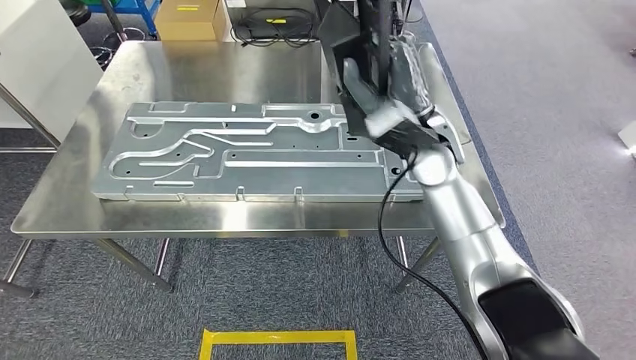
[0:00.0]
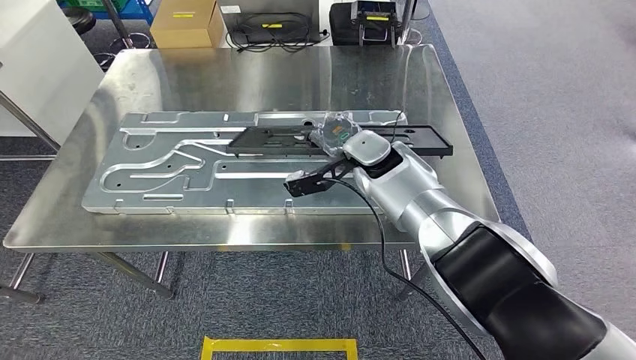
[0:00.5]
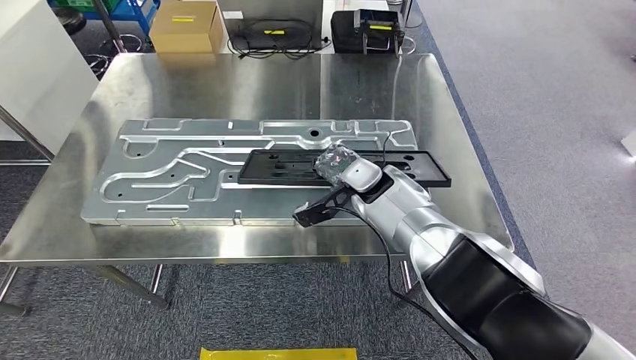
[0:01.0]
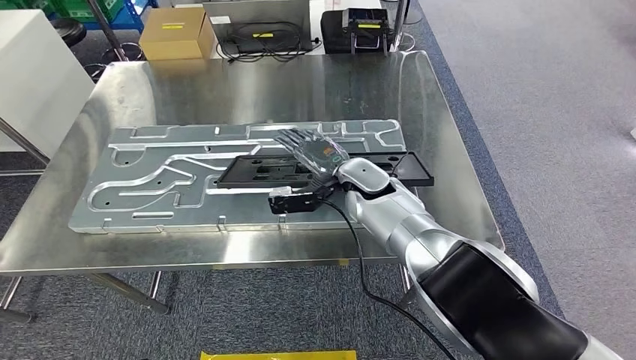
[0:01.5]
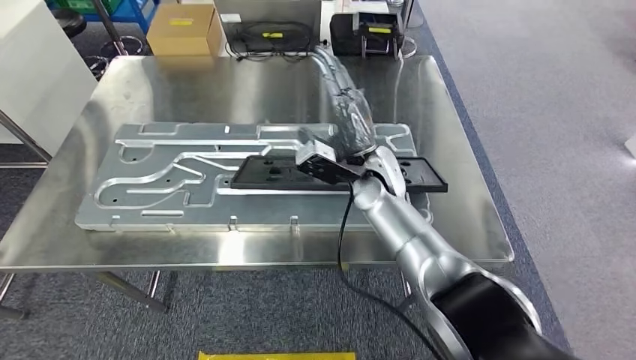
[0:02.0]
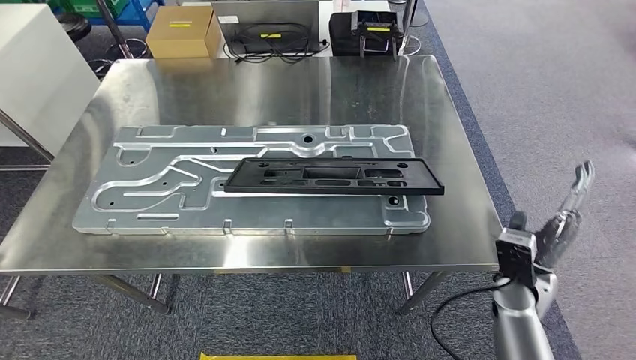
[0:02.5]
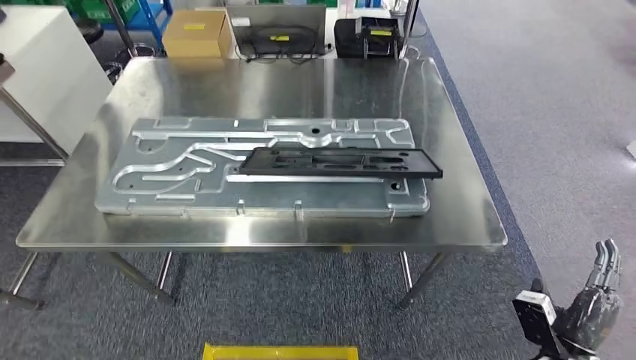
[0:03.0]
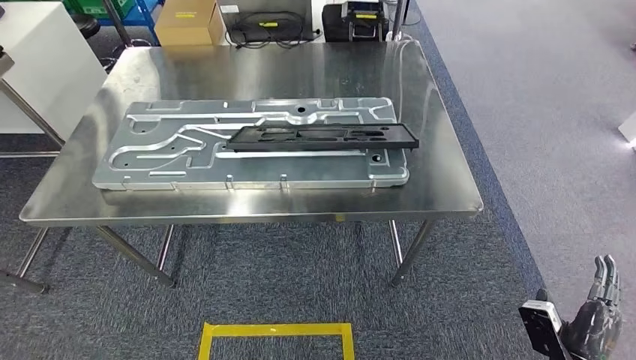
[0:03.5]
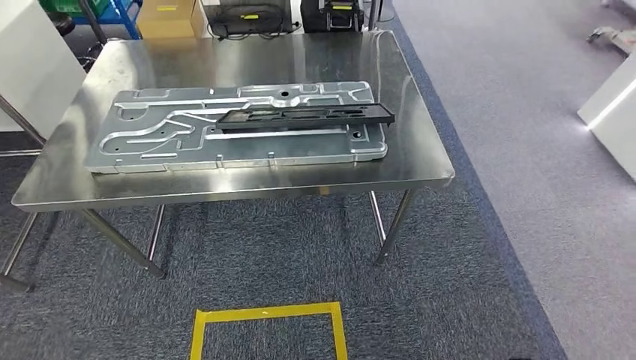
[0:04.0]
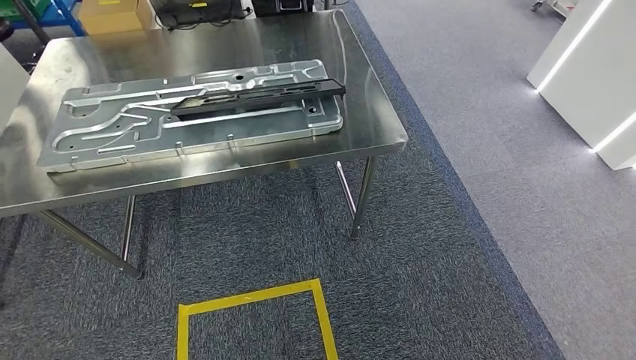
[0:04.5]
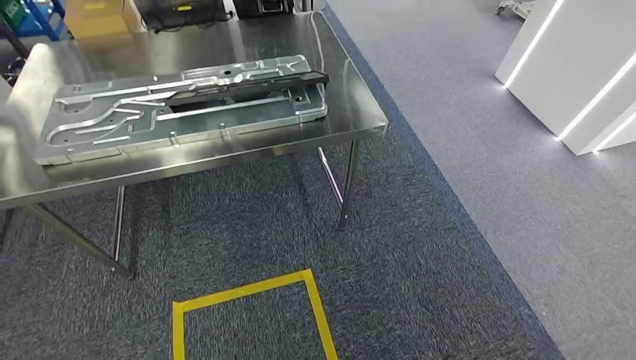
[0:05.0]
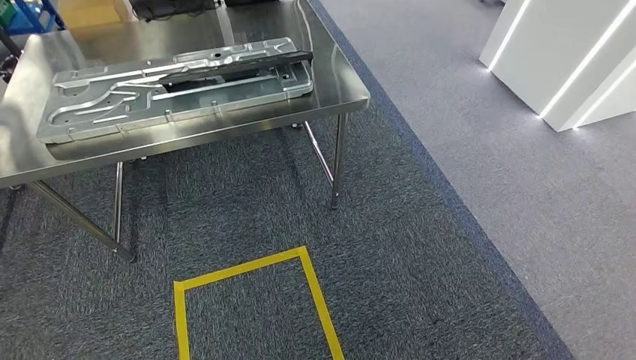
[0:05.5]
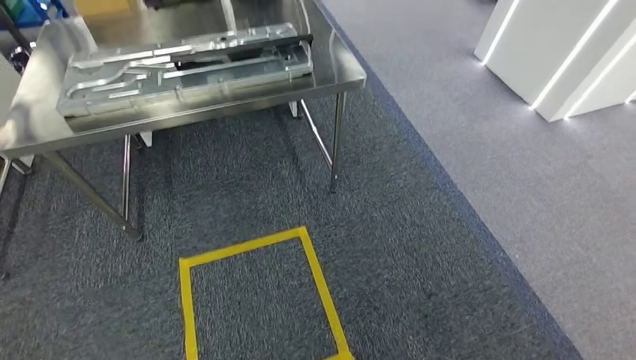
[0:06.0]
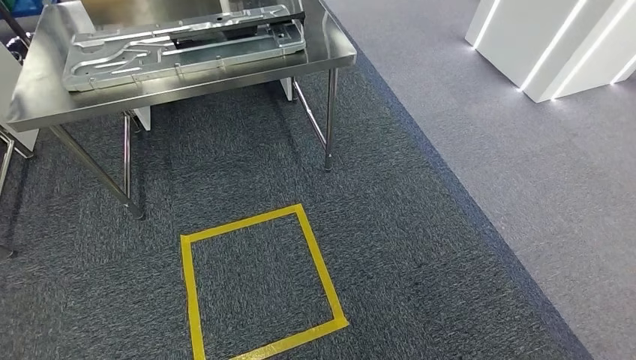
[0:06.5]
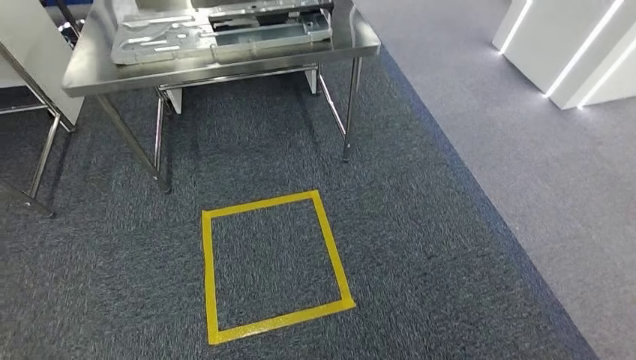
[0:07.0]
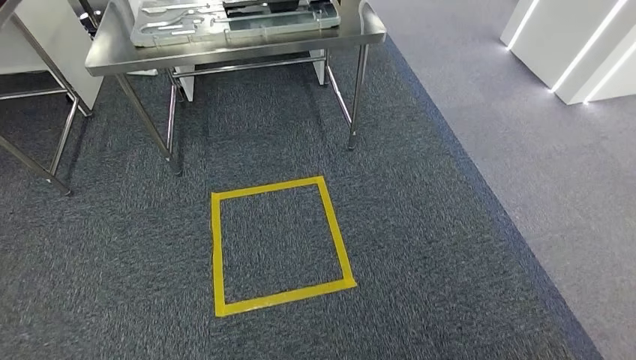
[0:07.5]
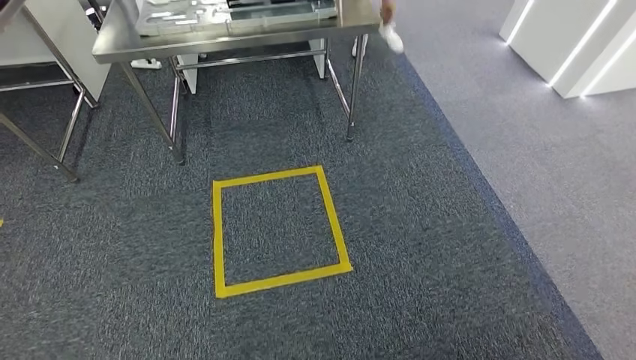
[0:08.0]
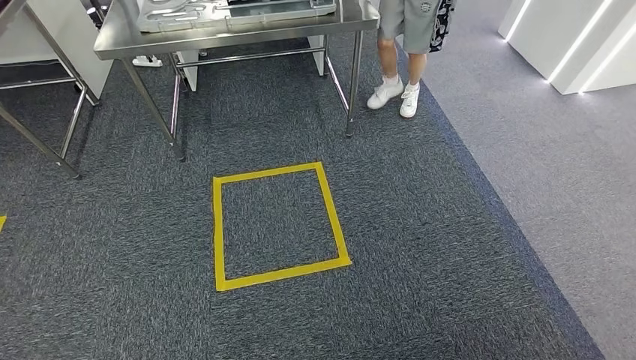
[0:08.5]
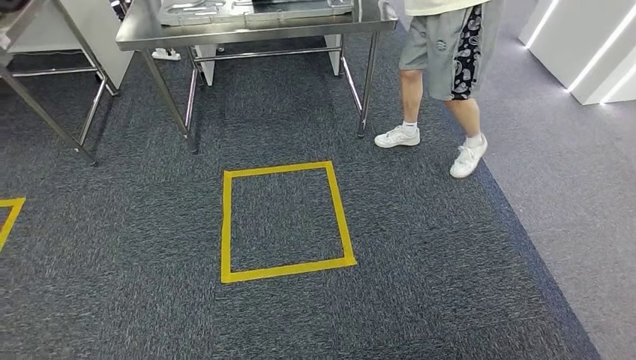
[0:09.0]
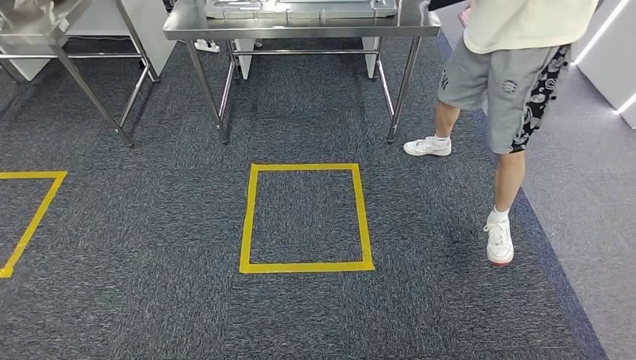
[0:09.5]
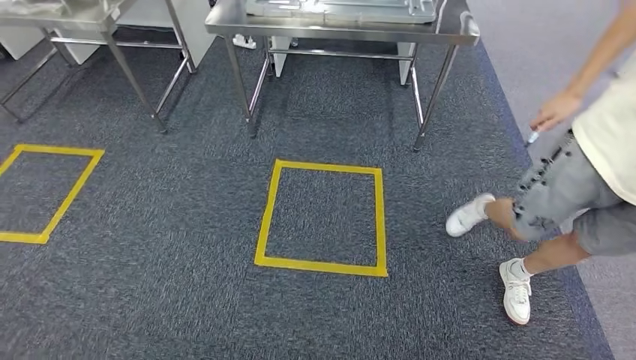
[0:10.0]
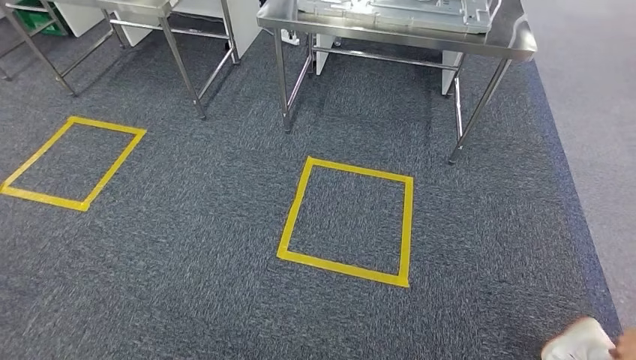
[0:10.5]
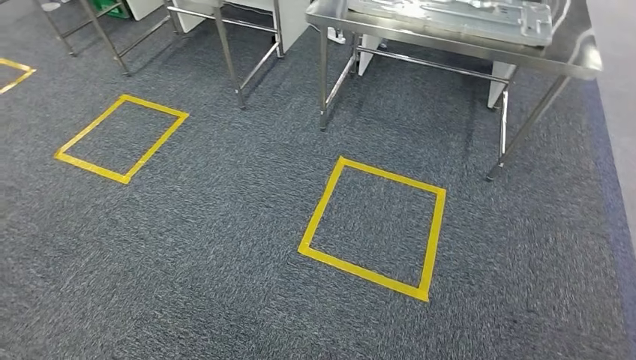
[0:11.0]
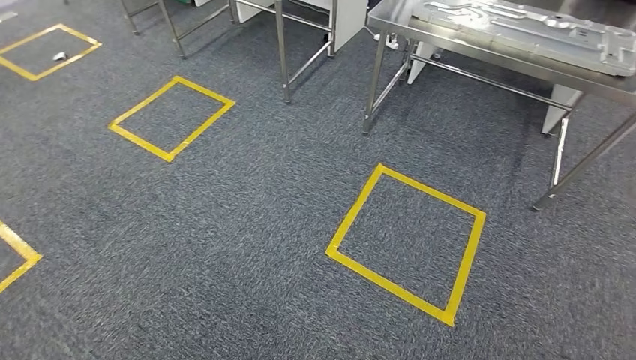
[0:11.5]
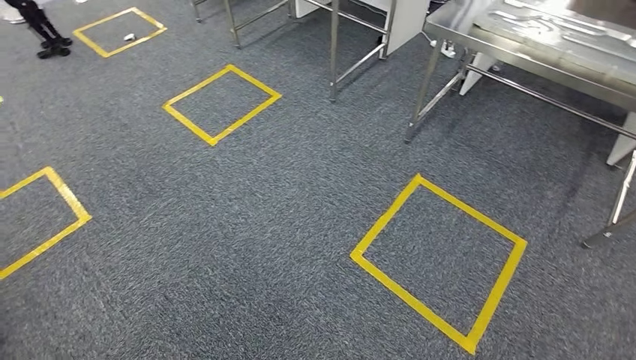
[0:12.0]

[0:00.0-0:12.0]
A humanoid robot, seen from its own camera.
Step, 0:01.0 to 0:03.5: Insert the large material into the corresponding slot on the workbench.

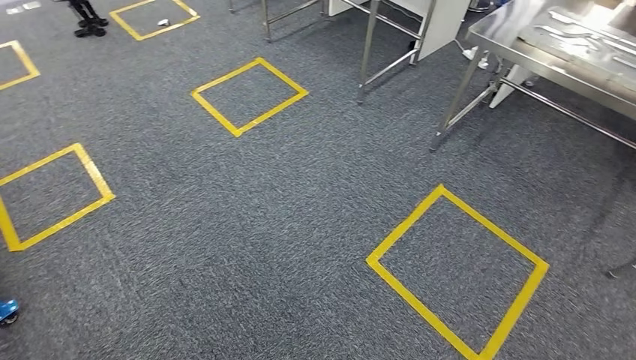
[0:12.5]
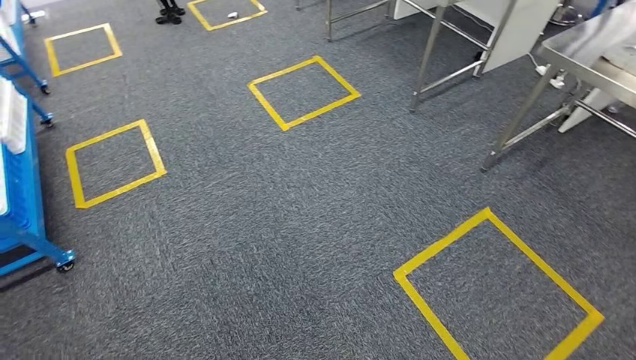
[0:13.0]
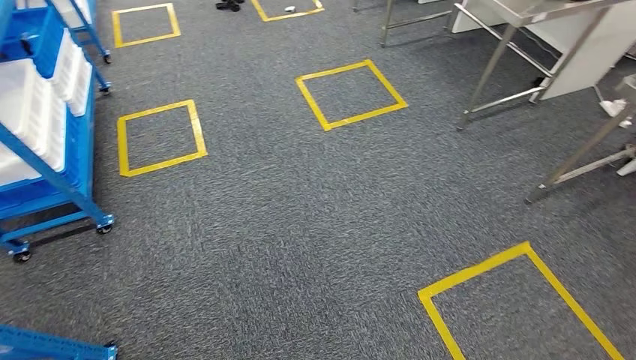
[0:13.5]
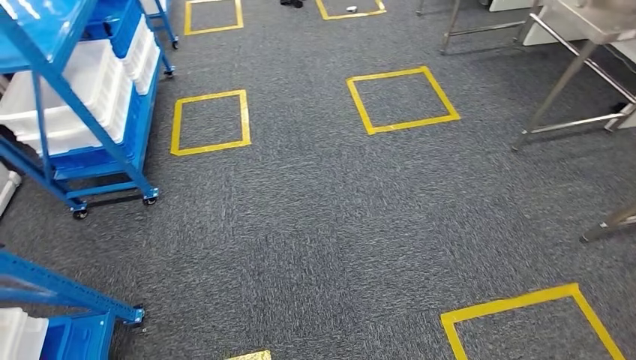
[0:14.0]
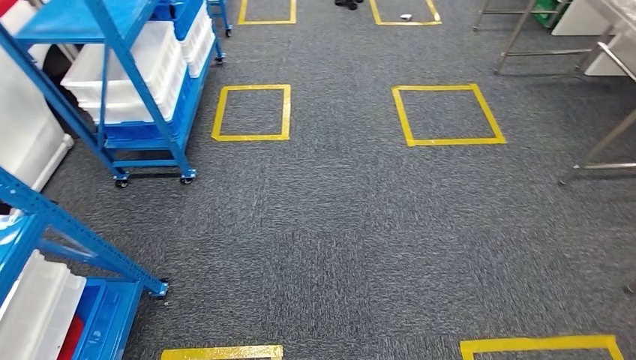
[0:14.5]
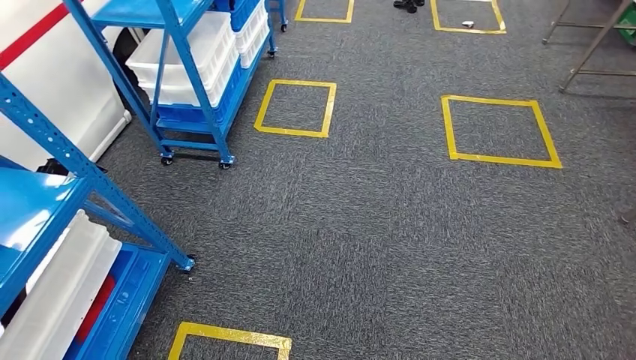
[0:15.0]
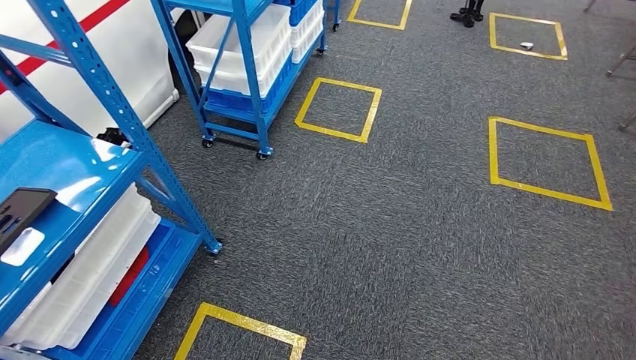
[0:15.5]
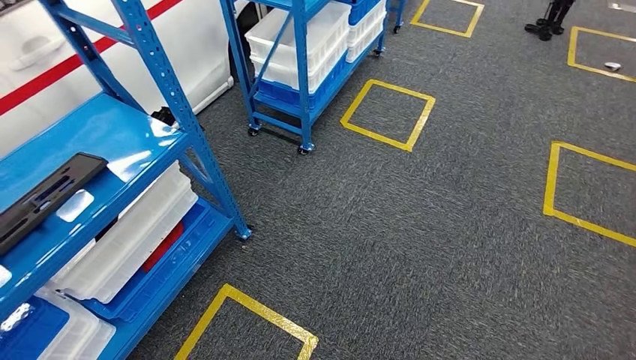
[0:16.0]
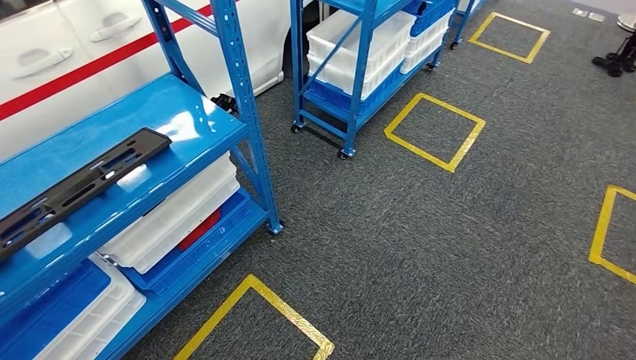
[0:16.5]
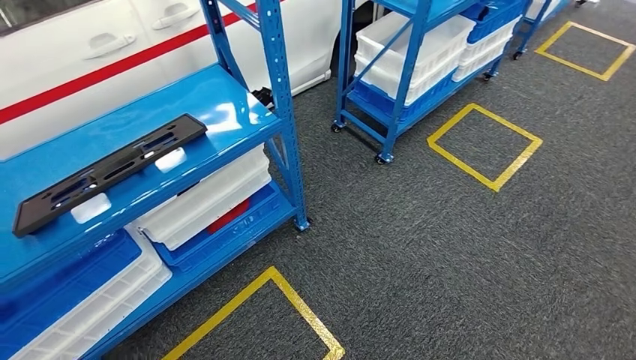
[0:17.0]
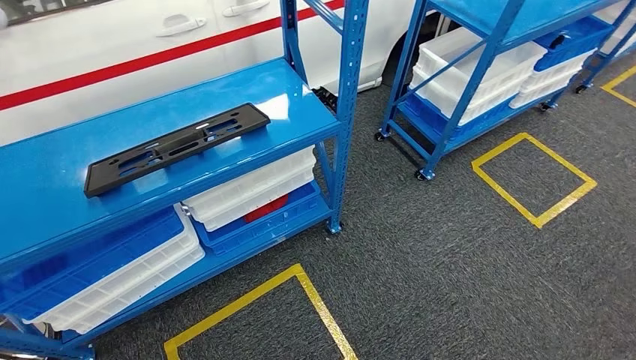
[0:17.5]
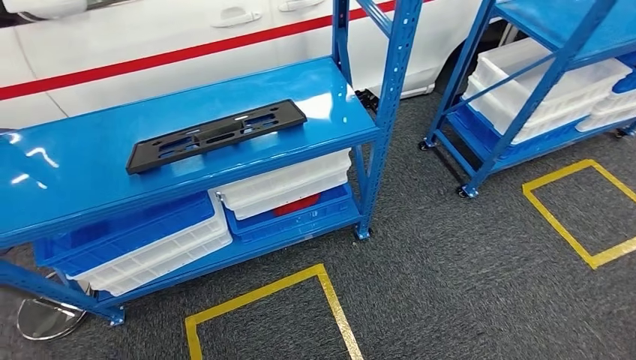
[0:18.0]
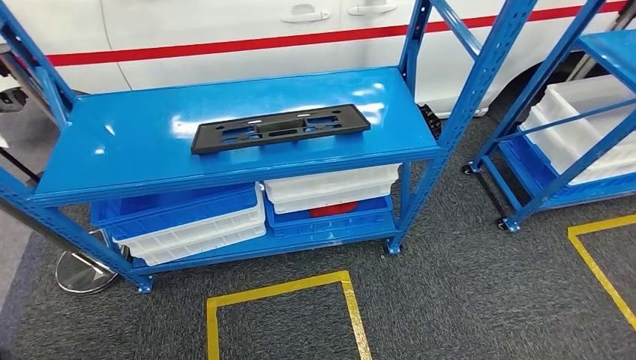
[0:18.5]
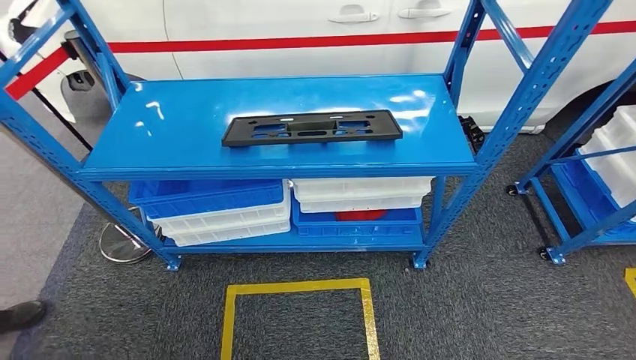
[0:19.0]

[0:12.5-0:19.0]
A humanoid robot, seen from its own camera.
Step, 0:12.5 to 0:15.5: Return to the initial position at the shelf.

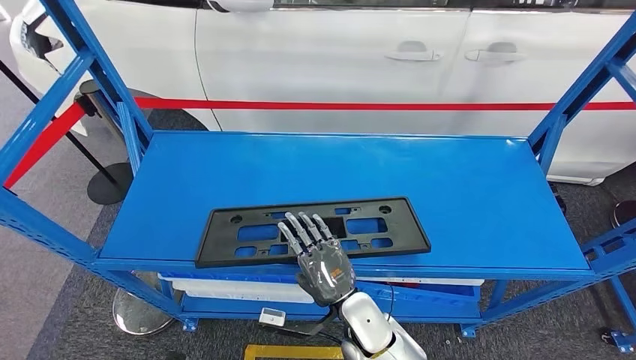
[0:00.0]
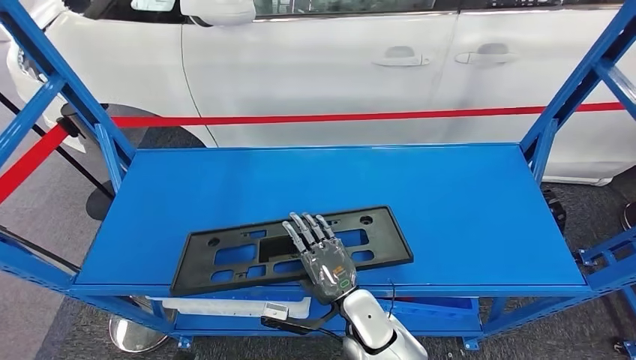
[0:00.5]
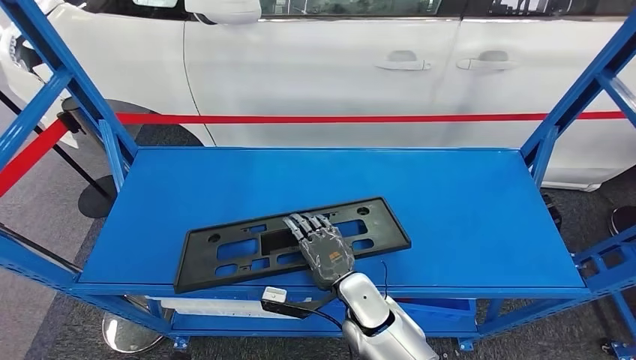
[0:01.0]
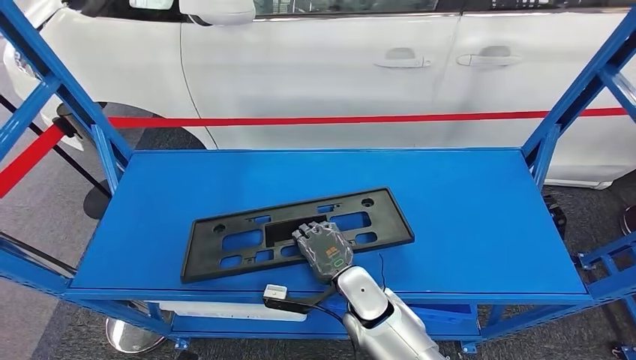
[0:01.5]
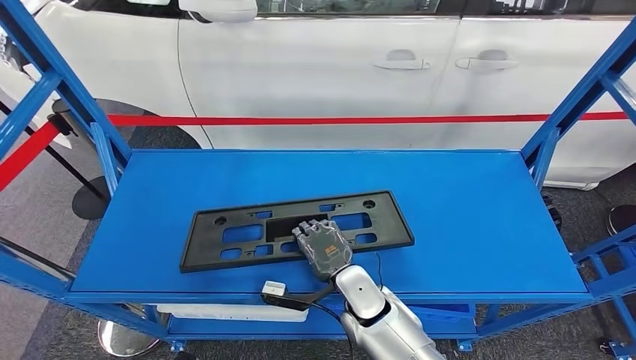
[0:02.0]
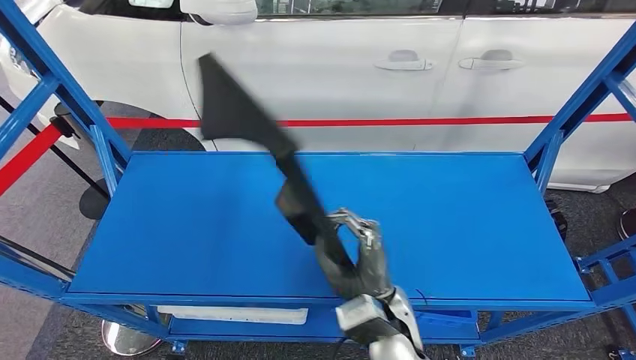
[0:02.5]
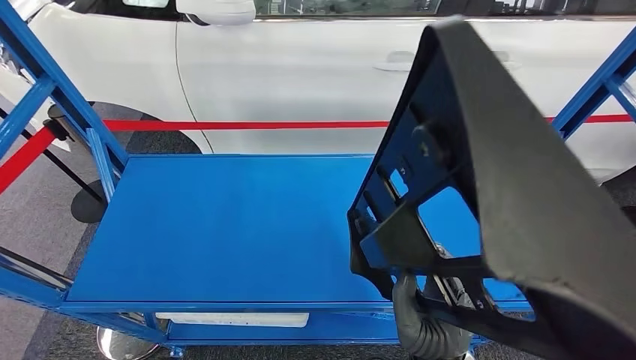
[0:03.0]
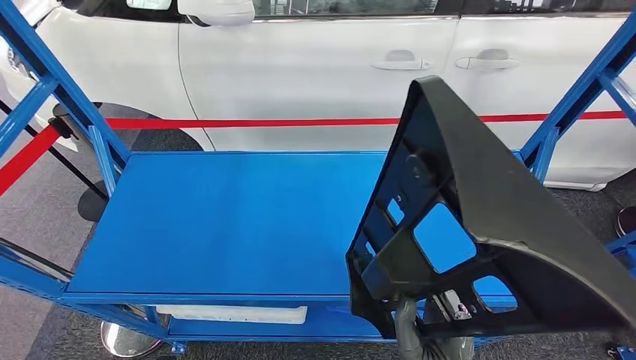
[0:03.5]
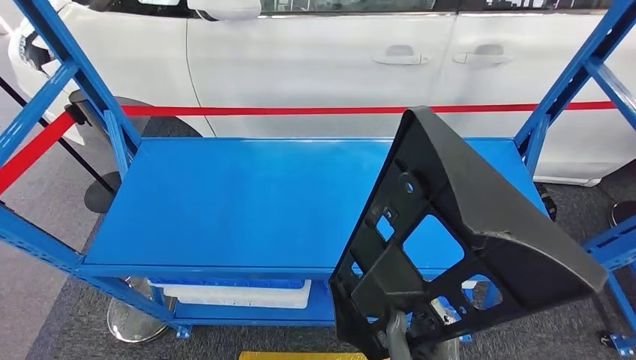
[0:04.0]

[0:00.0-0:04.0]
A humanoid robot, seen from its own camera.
Step, 0:00.0 to 0:03.5: Pick up the large material from the shelf.
